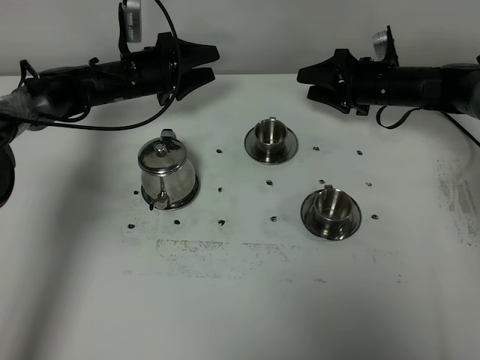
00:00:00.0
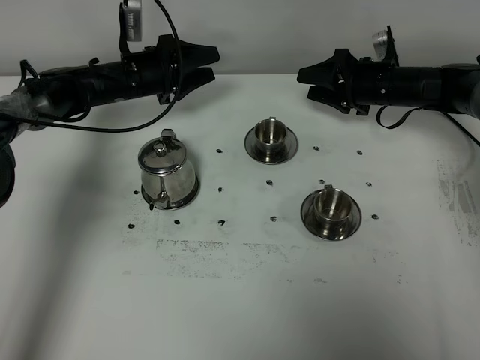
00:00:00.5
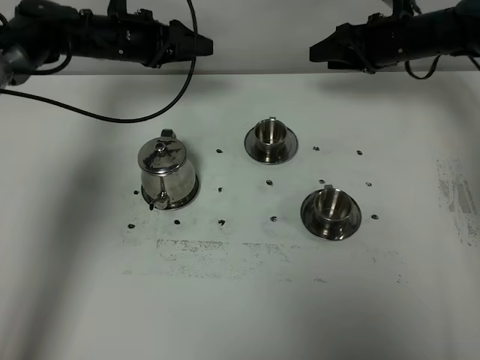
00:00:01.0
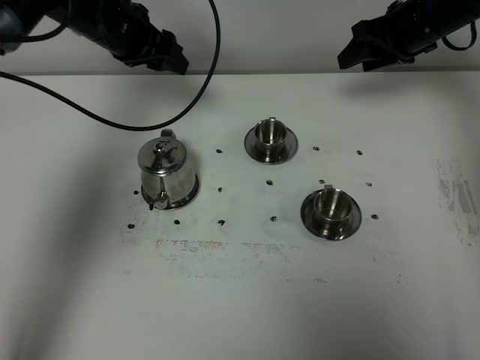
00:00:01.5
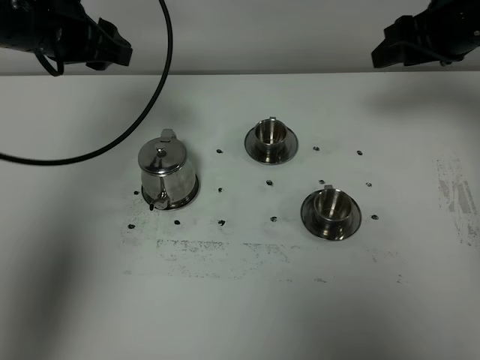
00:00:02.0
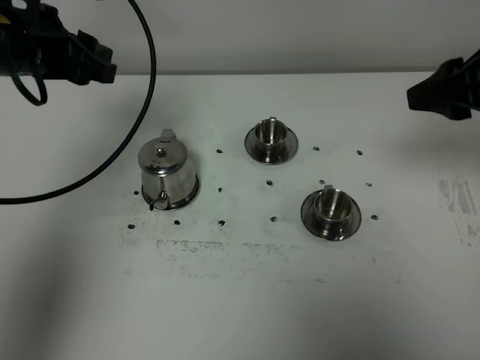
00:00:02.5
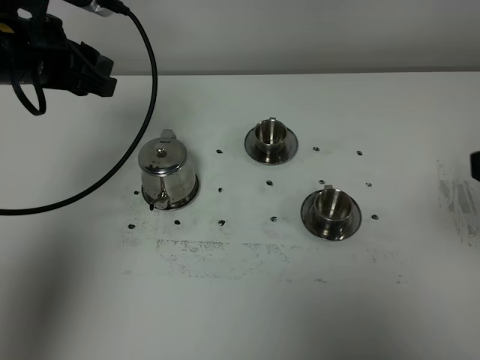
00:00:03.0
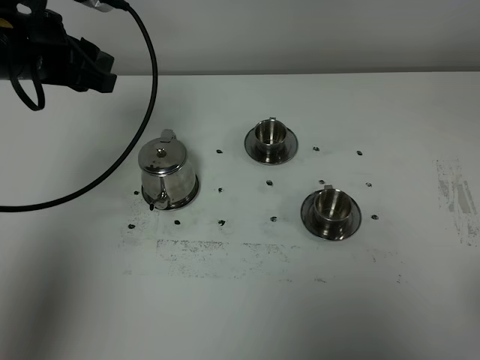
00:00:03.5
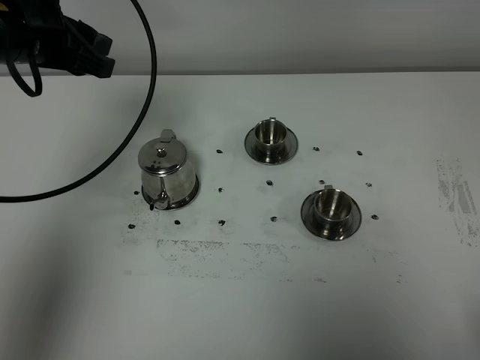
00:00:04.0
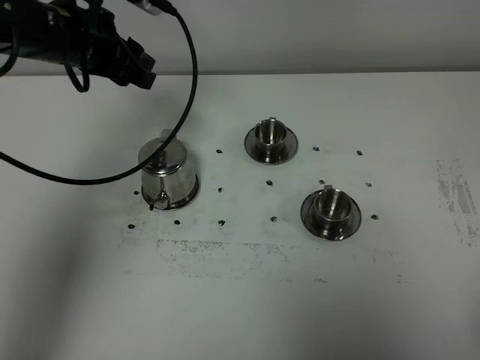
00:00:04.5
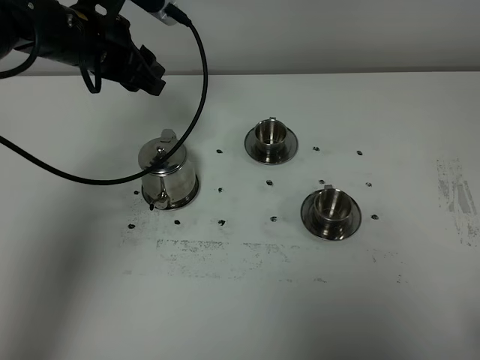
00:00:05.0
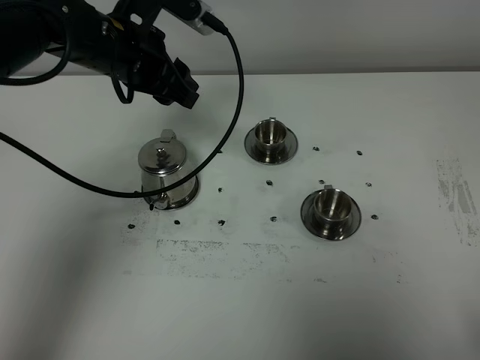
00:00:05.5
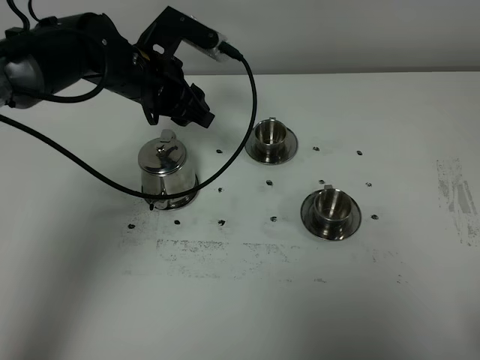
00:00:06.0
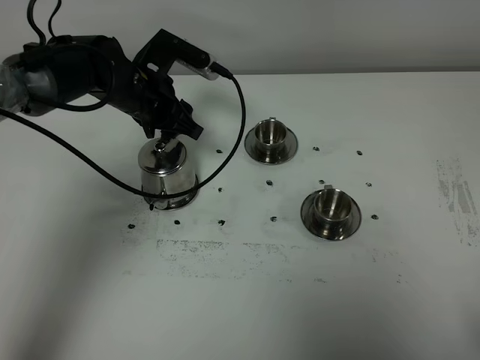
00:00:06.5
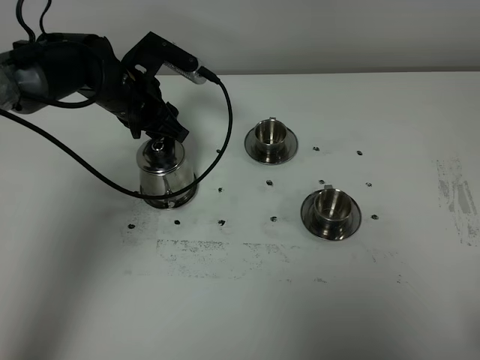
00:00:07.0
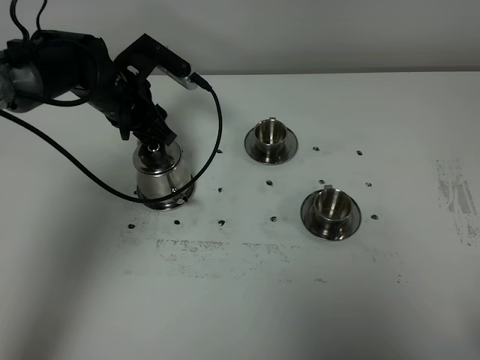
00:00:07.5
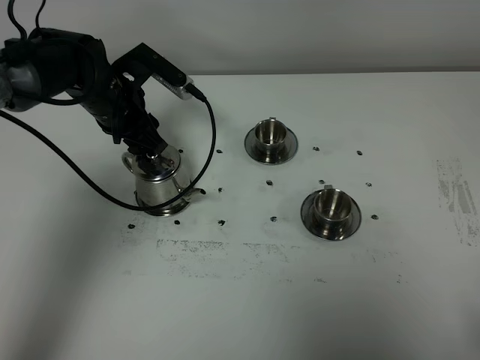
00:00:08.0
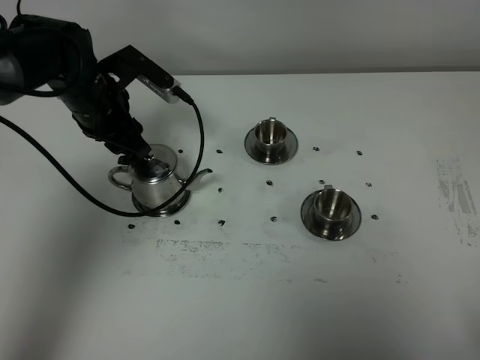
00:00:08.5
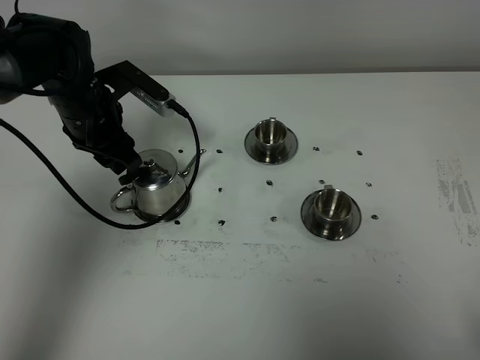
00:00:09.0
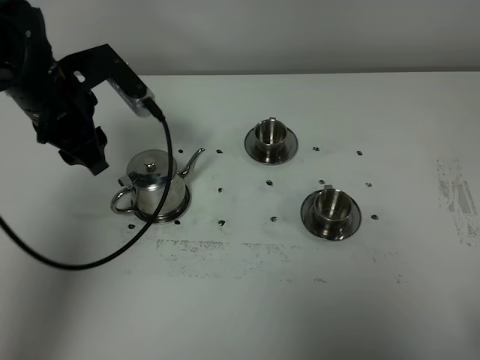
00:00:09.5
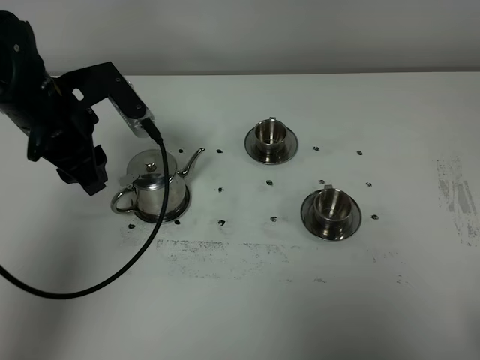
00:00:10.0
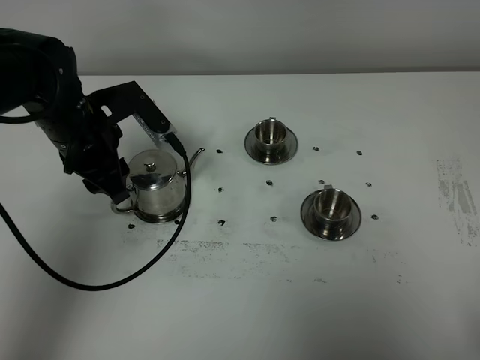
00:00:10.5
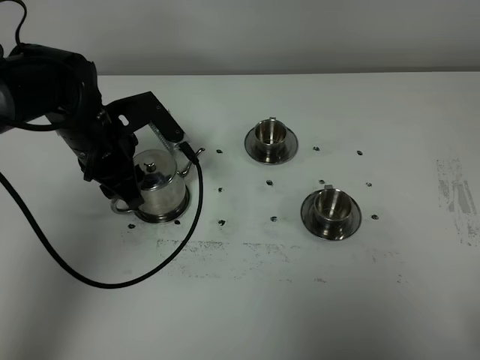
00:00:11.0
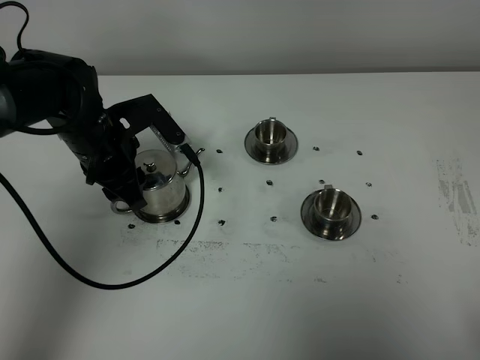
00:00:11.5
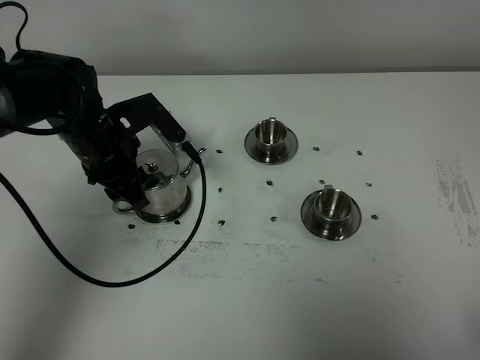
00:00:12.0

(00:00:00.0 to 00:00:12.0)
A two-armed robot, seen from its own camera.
Task of the whole recording: grasp the stainless steel teapot and pour the tea into the two stainless steel teacups one by one, put the stainless steel teapot back in its original place.
00:00:00.0 - 00:00:02.0: The two grippers go approximately 25 cm upward and backward.
00:00:02.0 - 00:00:04.0: The right gripper heads backward, covering approximately 40 cm, and closes.
00:00:04.0 - 00:00:06.0: The left gripper shifts roughly 15 cm downward, to the right and forward.
00:00:06.0 - 00:00:08.0: The left gripper shifts by roughly 5 cm.
00:00:08.0 - 00:00:10.0: The left gripper heads backward and upward, covering approximately 10 cm.
00:00:10.0 - 00:00:12.0: The left gripper goes some 5 cm downward.

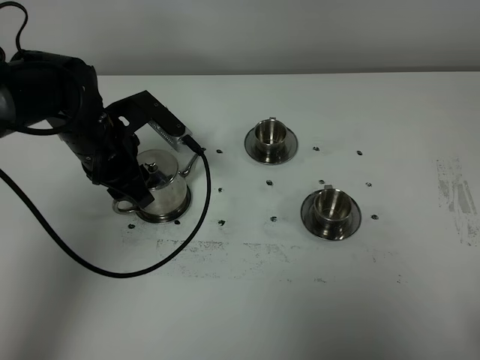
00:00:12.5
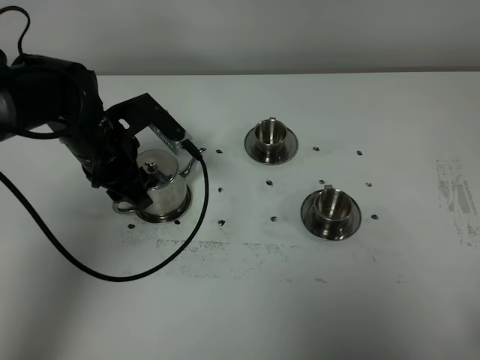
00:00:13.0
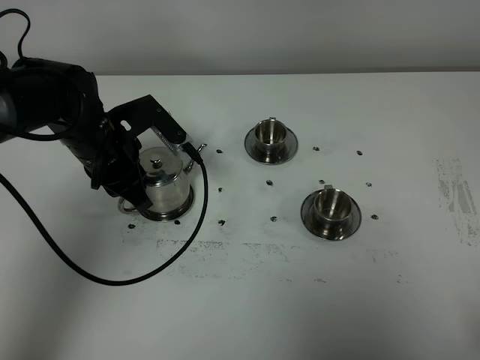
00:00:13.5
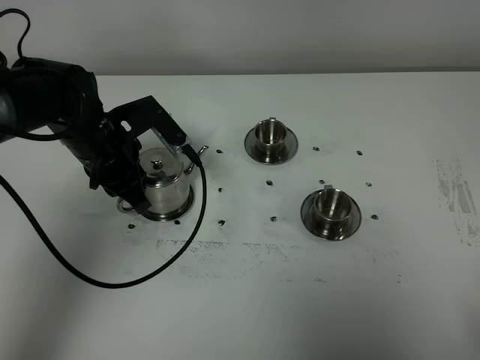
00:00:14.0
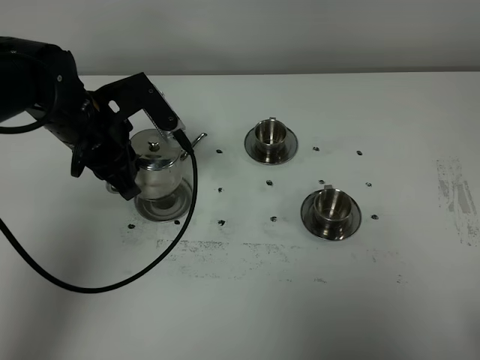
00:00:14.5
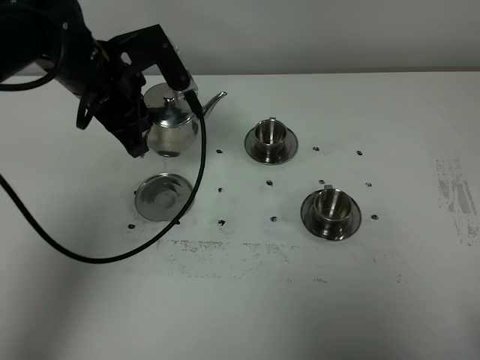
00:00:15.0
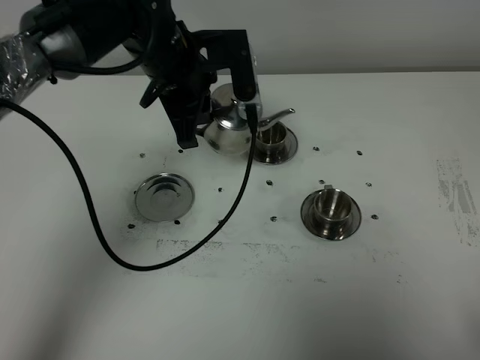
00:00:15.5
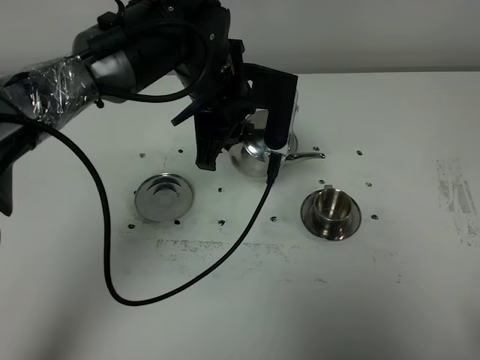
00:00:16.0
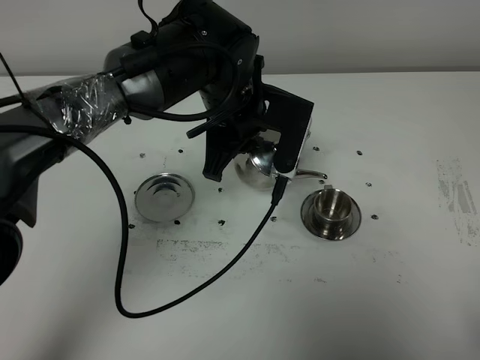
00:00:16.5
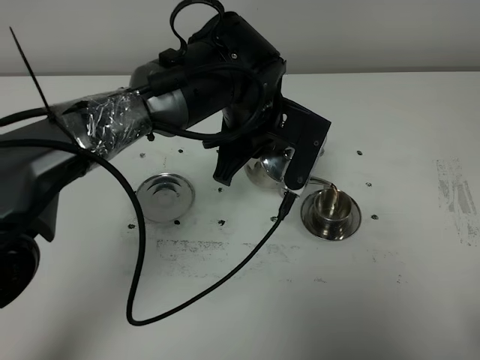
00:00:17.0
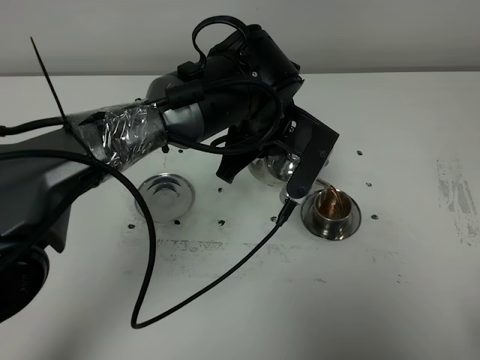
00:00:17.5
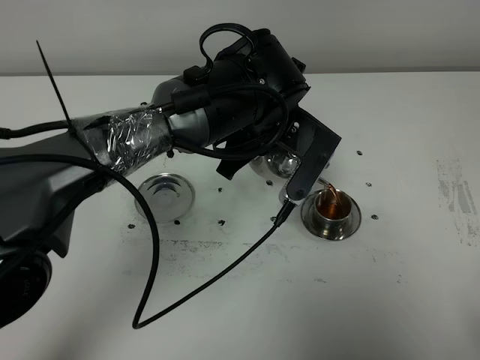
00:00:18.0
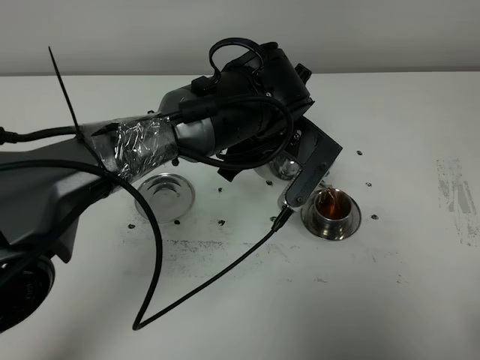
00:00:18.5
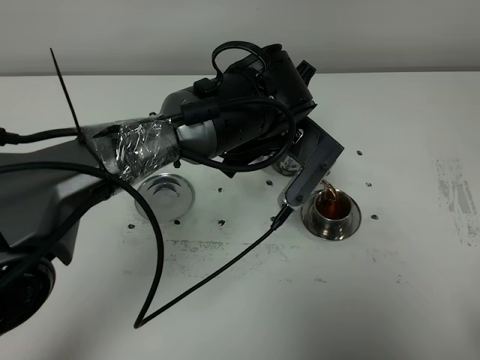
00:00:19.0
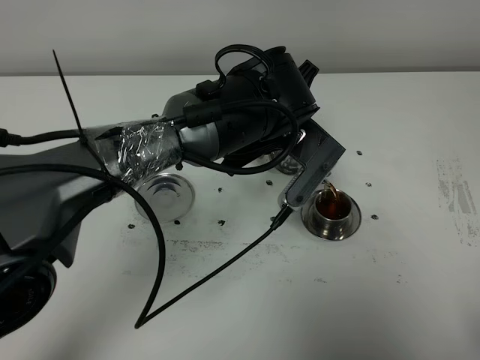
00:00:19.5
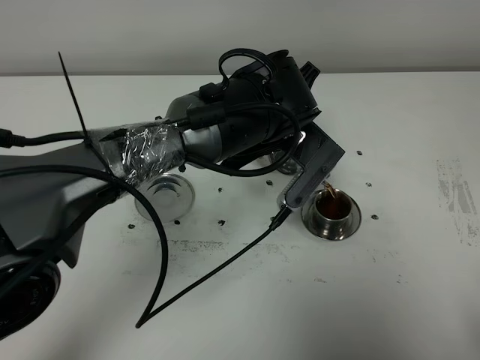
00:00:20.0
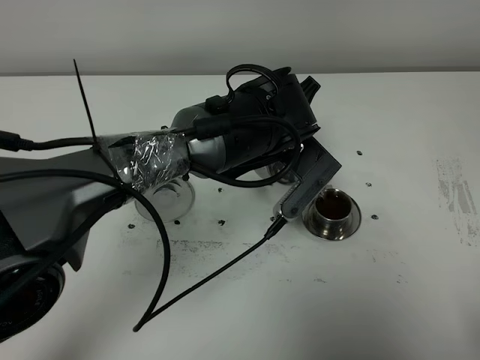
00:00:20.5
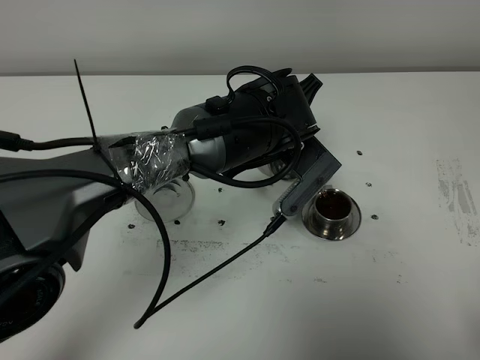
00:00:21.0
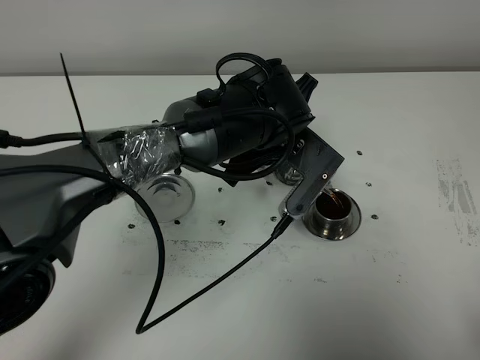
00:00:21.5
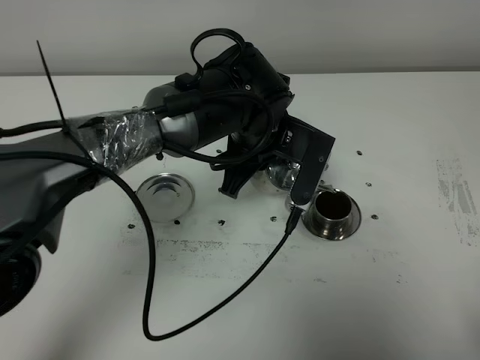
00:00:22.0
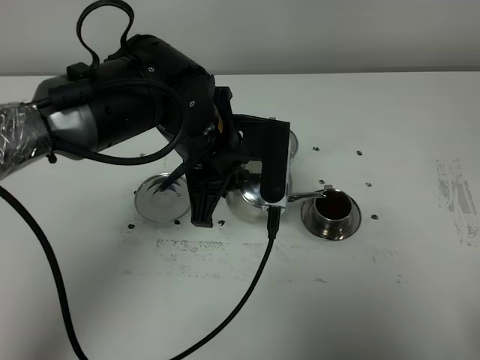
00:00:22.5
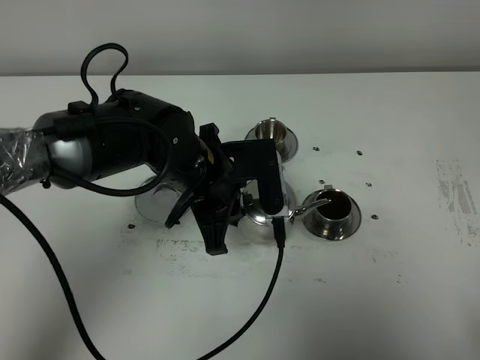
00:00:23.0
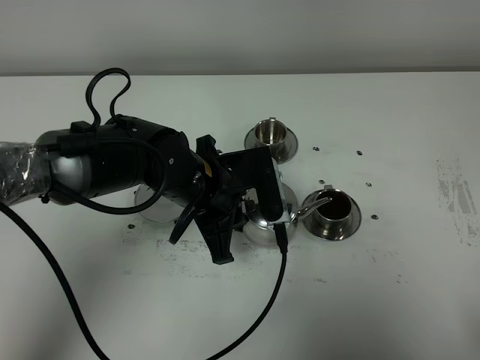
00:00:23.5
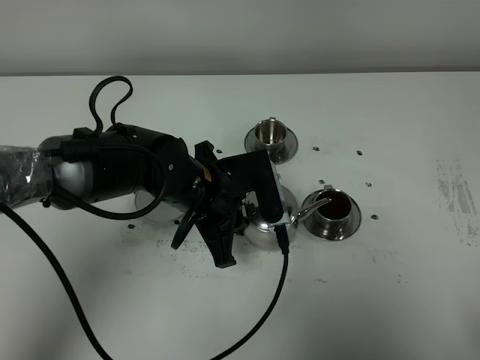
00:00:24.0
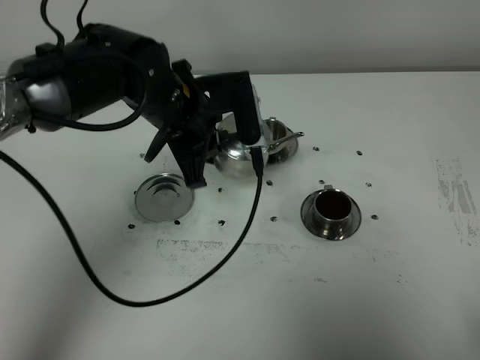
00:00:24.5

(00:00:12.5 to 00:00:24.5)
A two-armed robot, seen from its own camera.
Task of the whole recording: grasp the stainless steel teapot and pour the tea into the two stainless steel teacups one by one, put the stainless steel teapot back in its original place.
Step, 00:00:14.5 - 00:00:22.0: Pour tea into the teacup with the left gripper.
00:00:12.5 - 00:00:14.5: The left gripper closes up.
00:00:14.5 - 00:00:16.5: The left gripper heads to the right, covering about 15 cm.
00:00:18.5 - 00:00:20.5: The grippers make only small movements.
00:00:20.5 - 00:00:22.5: The left gripper goes approximately 10 cm to the left.
00:00:22.5 - 00:00:24.5: The left gripper goes approximately 5 cm forward.

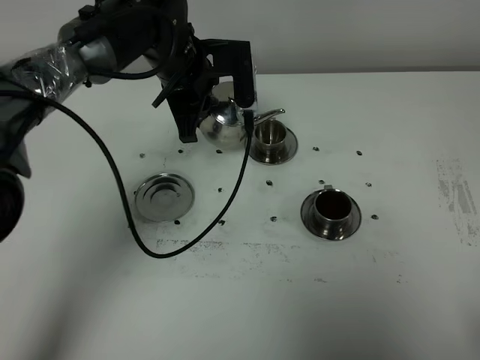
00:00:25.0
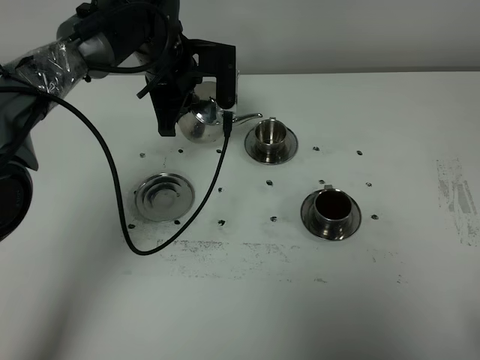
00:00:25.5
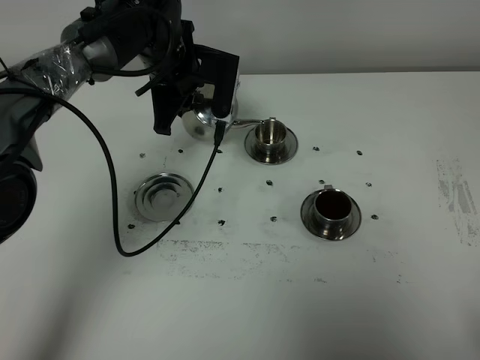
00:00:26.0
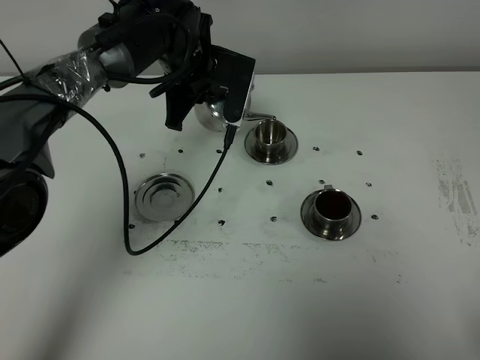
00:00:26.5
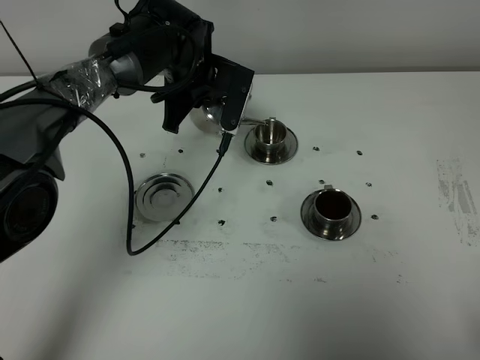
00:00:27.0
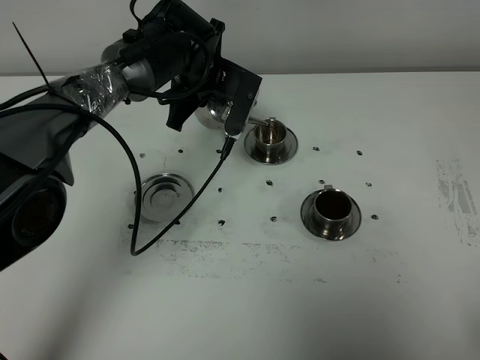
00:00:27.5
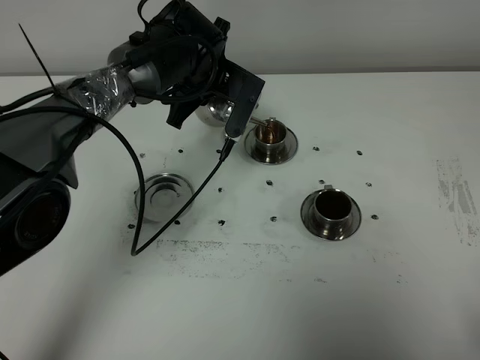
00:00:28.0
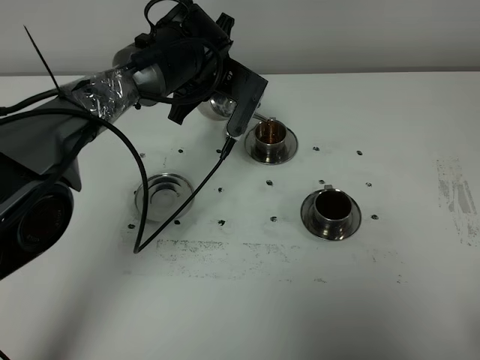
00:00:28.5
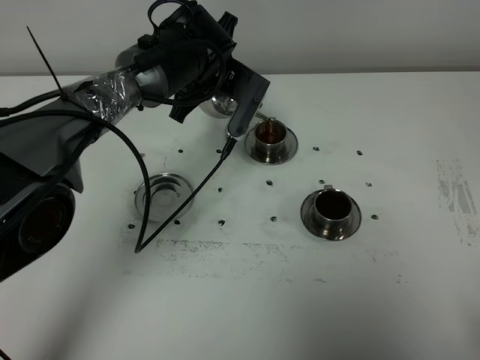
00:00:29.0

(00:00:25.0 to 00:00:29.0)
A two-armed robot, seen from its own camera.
Task of the whole recording: grasp the stainless steel teapot and pour the tea into the two stainless steel teacups one by one, put the stainless steel teapot back in its original place.
00:00:27.0 - 00:00:29.0: The grippers stay close to where they were, moving slightly.
